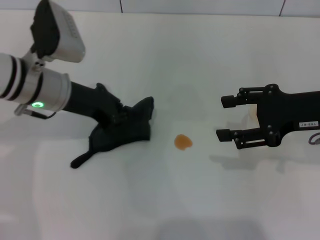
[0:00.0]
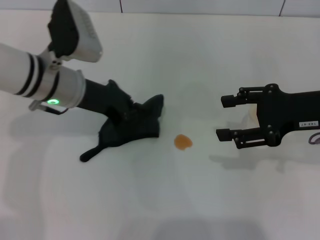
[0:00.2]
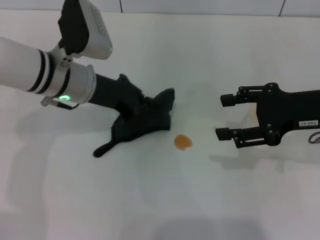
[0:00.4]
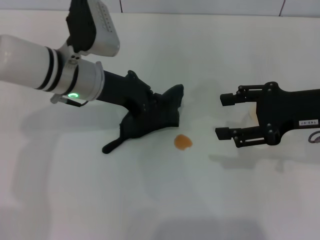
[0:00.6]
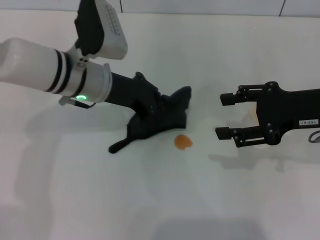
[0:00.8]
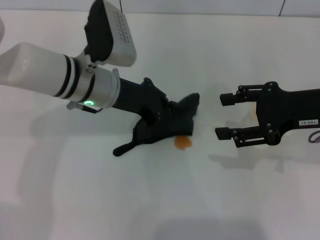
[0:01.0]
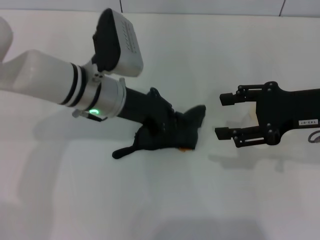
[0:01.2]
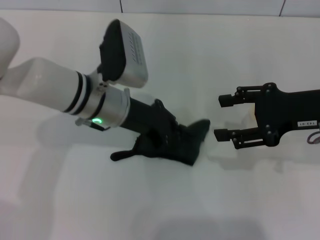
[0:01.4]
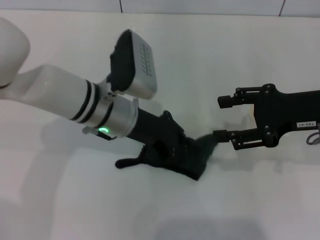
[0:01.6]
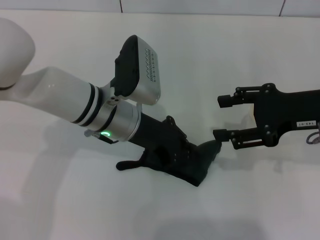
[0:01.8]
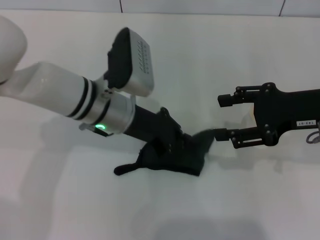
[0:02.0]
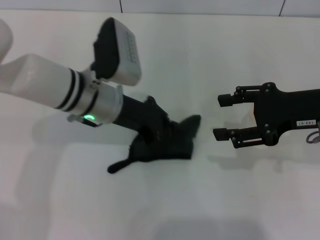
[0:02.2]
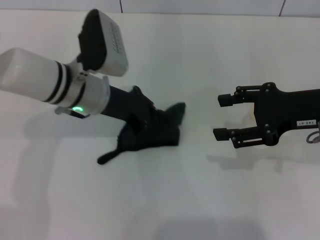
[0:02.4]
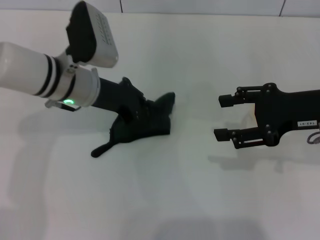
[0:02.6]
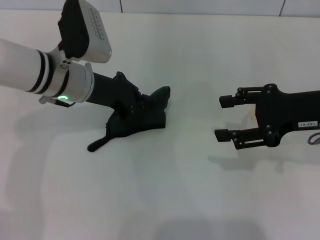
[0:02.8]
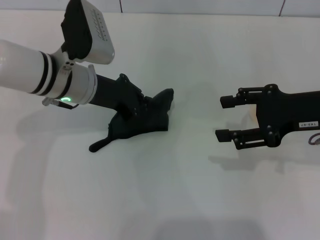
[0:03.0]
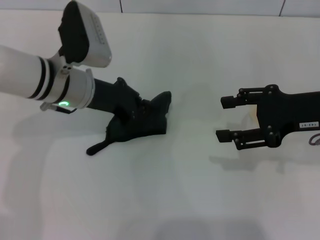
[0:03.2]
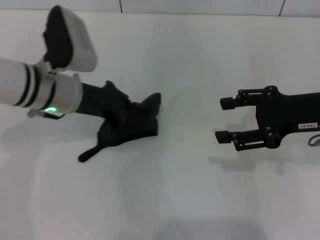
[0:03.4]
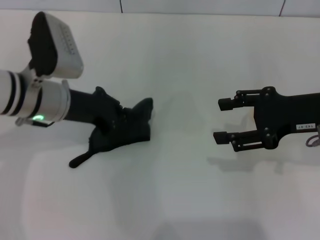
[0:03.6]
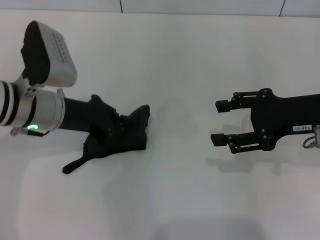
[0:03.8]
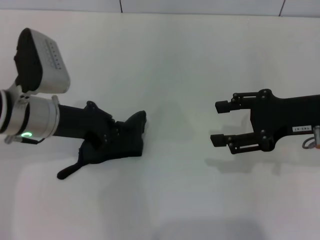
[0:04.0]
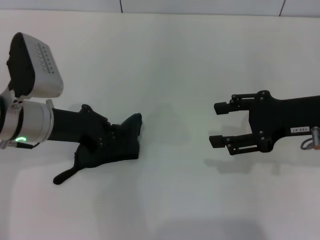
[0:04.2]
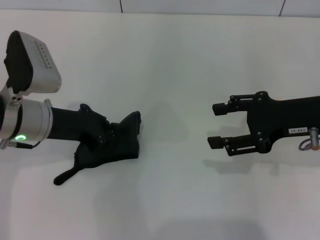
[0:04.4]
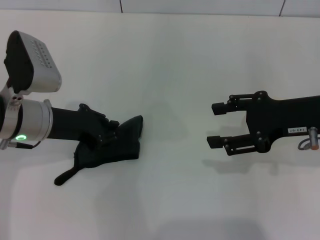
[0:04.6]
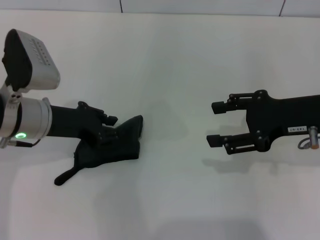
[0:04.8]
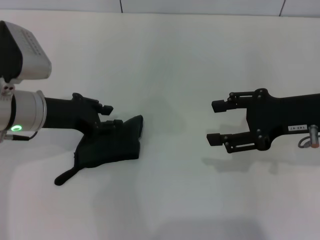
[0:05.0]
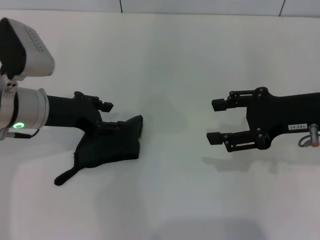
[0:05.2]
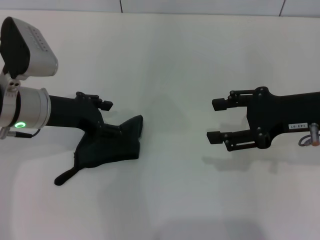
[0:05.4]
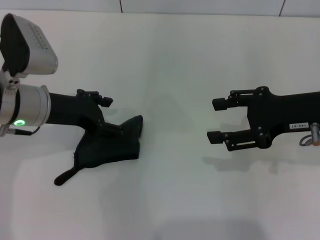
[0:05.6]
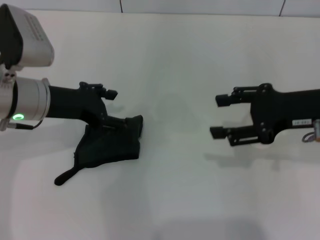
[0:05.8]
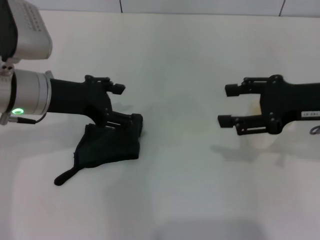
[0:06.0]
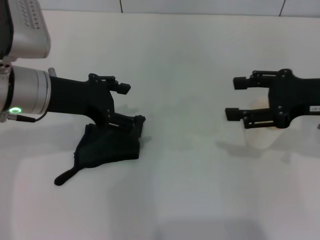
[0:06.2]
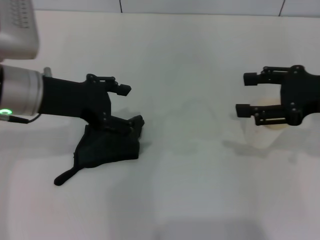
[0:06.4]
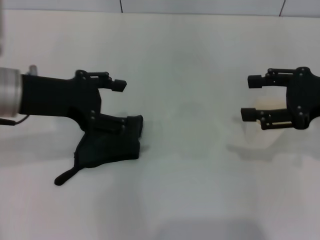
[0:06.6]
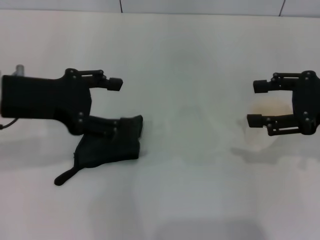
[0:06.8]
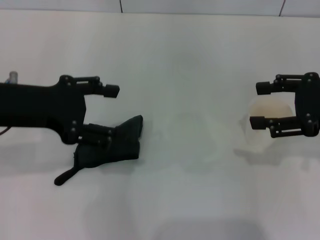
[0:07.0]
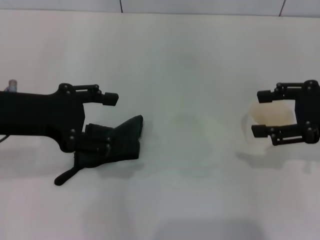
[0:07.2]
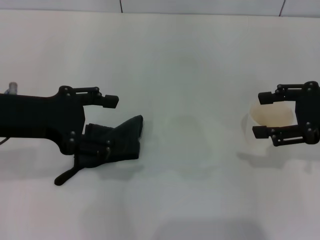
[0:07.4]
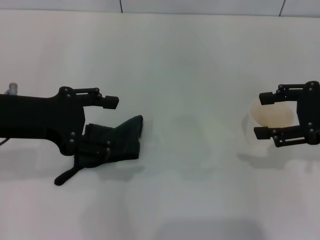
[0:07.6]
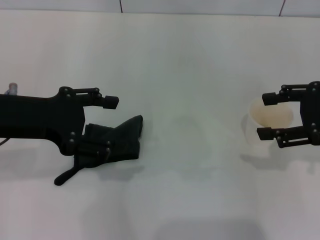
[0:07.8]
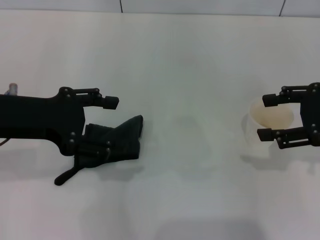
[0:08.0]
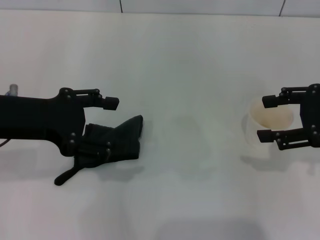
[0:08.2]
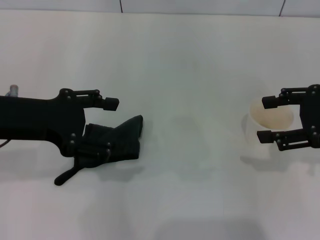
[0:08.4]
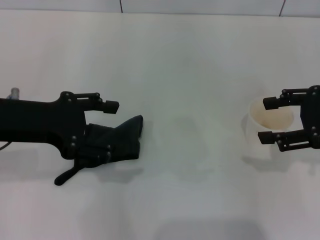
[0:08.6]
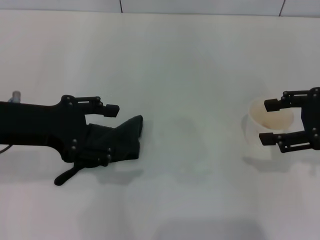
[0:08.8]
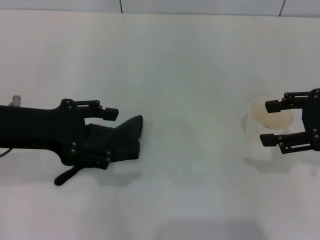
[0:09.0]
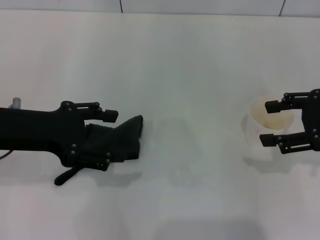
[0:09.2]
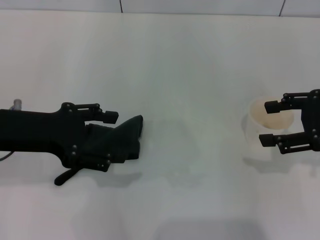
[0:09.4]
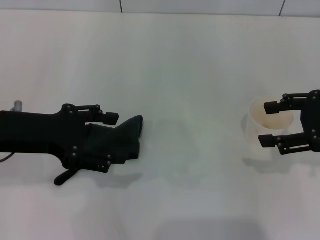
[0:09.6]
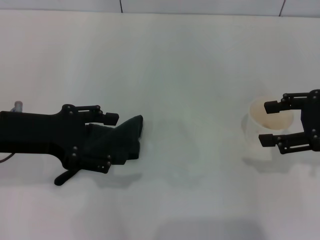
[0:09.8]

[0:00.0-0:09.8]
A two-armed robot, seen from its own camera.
Step, 0:00.0 to 0:04.2: Wipe the stains off the table with the left gripper.
Step, 0:04.4 to 0:05.0: Place the rag on the table with the left gripper.
0:00.0 to 0:01.4: The left gripper shifts about 10 cm to the right.
0:01.4 to 0:02.8: The left gripper moves about 5 cm.
0:02.8 to 0:04.2: The left gripper is displaced backward and to the left by approximately 10 cm.
0:04.2 to 0:05.6: The left gripper opens up.
0:05.6 to 0:07.0: The left gripper moves upward, some 5 cm. Meanwhile the right gripper shifts some 5 cm to the right.
0:07.0 to 0:09.8: There are only small adjustments of the grippers.
